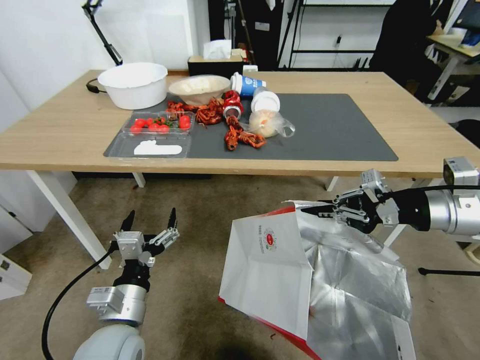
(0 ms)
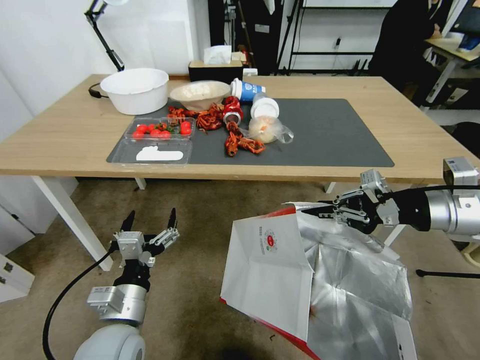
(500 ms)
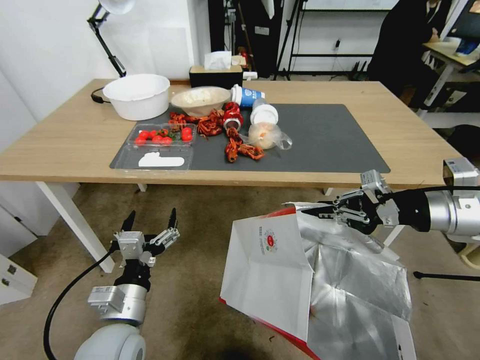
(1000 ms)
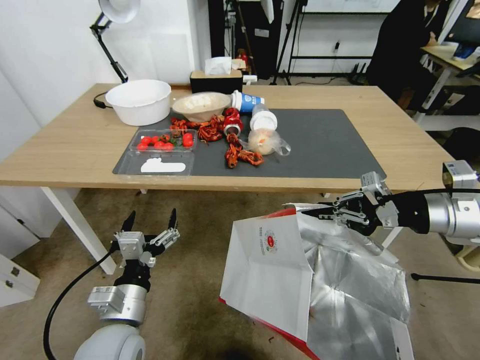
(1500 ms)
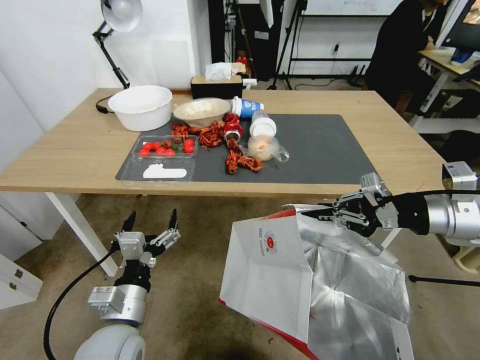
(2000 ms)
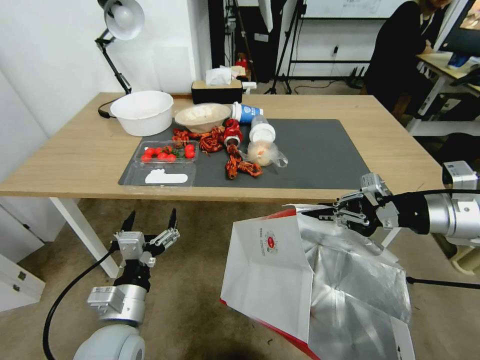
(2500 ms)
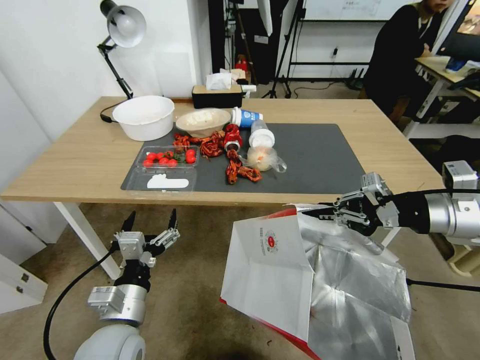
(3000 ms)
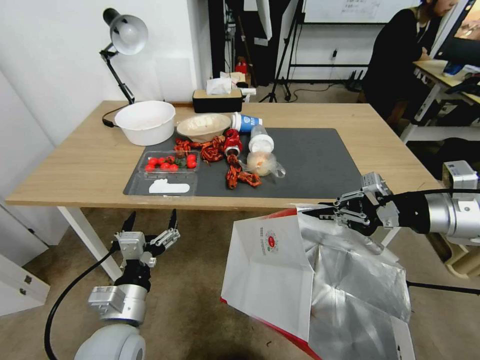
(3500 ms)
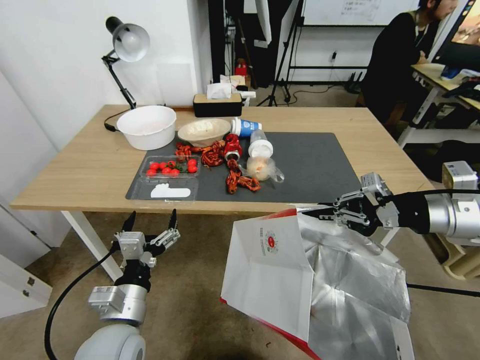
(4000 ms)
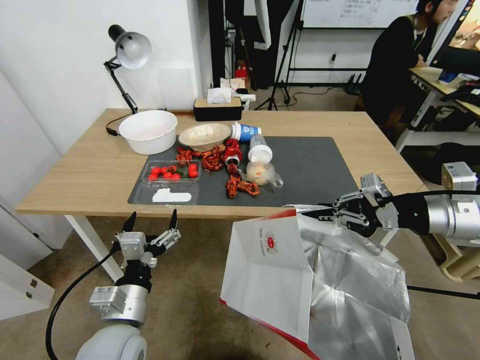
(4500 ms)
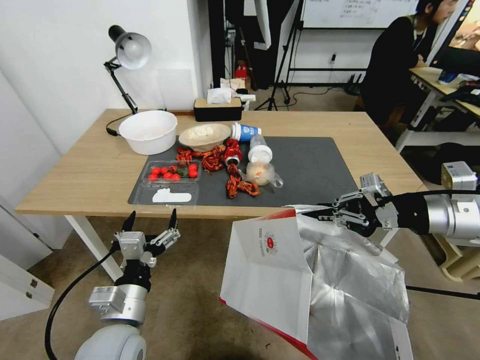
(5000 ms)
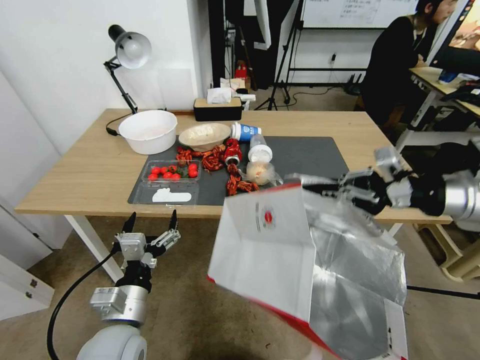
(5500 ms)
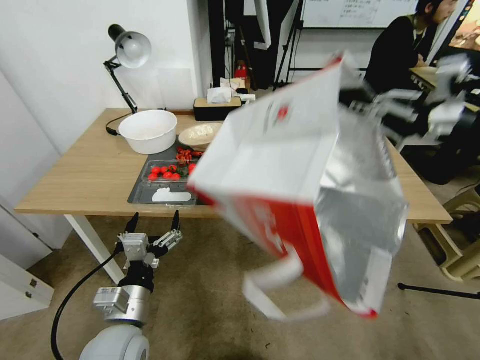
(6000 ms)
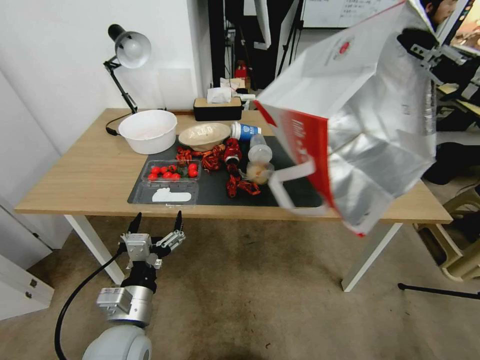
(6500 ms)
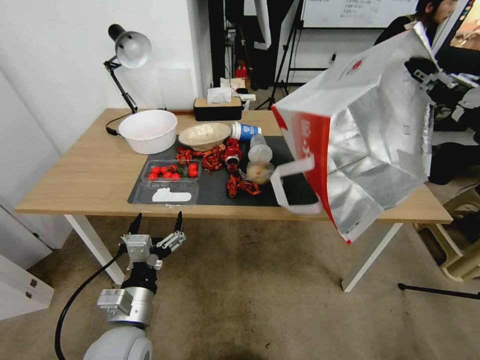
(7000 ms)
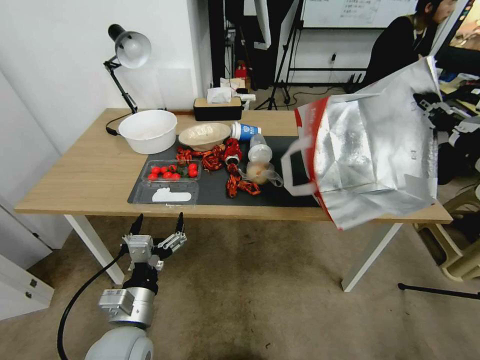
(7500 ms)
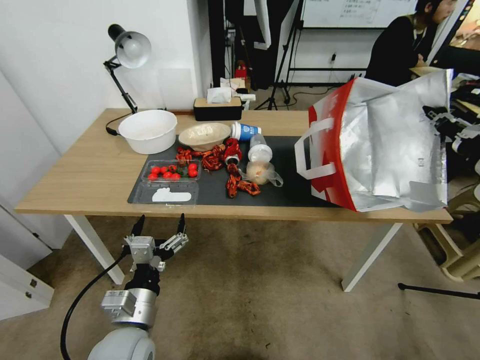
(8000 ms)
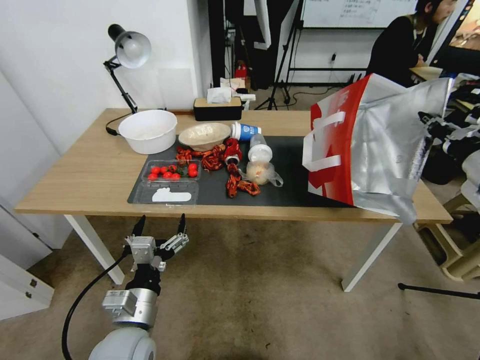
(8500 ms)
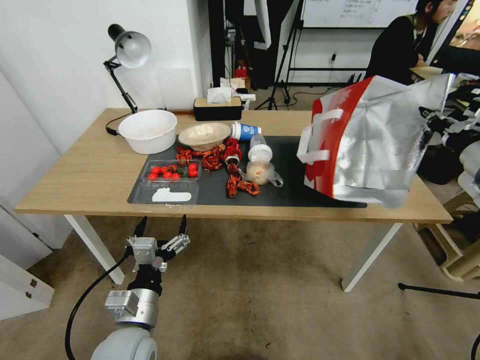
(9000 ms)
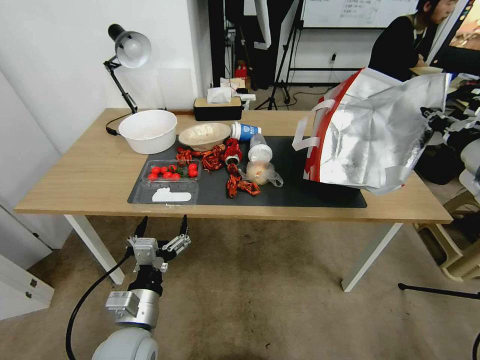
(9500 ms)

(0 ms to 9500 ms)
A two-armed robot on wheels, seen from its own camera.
Task of the whole recording: Pick up the food delivery bag from the floor and place it on the table.
7500 ms - 9500 ms: The right gripper moves forward, some 5 cm.

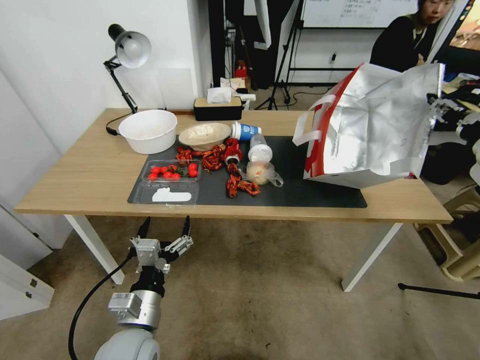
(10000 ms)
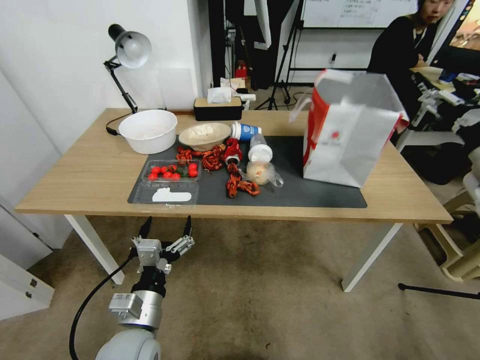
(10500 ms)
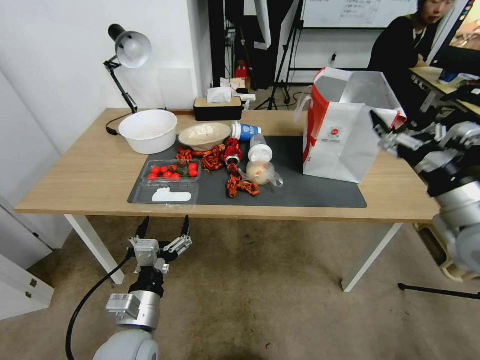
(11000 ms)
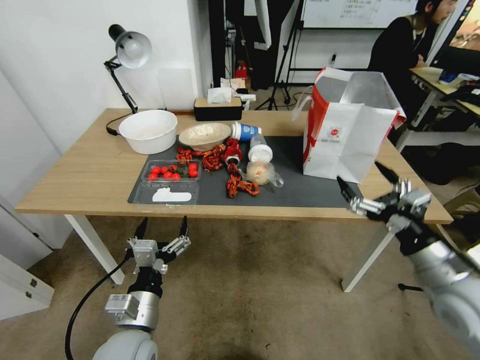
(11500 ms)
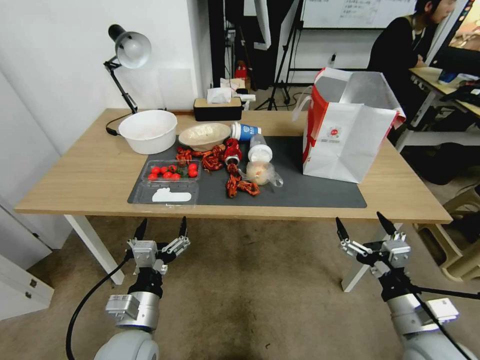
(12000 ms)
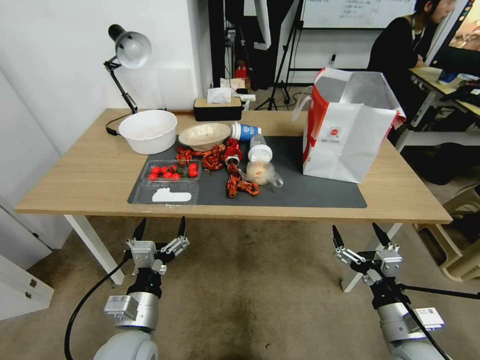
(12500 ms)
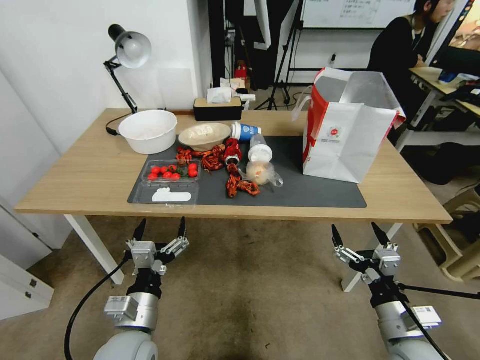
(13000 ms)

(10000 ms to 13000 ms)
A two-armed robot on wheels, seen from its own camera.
Task of the whole recording: Pick up the food delivery bag from the floor and place it on the table.
10000 ms - 11500 ms: The right gripper moves downward, backward and to the left, approximately 20 cm, and opens its fingers.
11500 ms - 13000 ms: The right gripper shifts approximately 15 cm downward, backward and to the left.

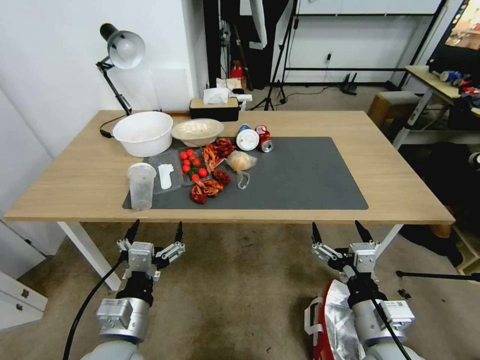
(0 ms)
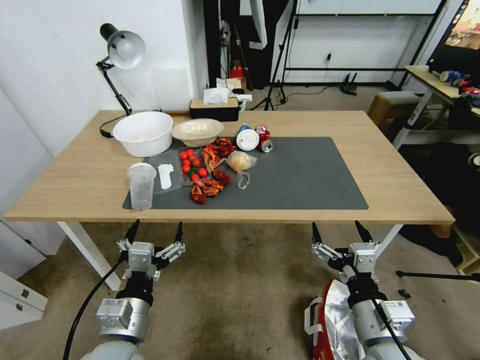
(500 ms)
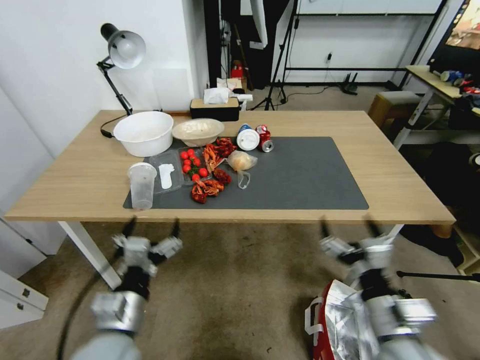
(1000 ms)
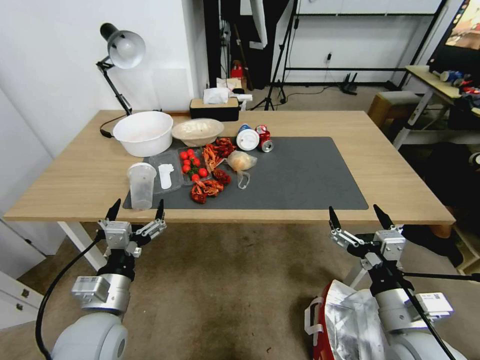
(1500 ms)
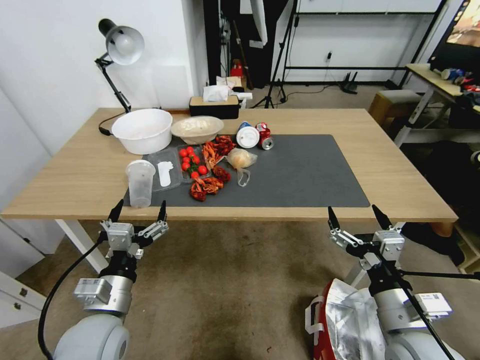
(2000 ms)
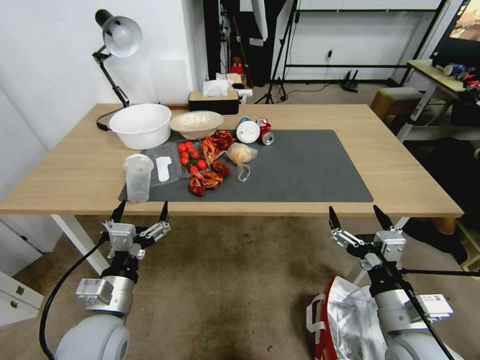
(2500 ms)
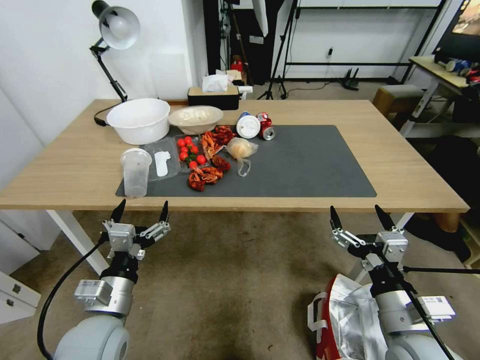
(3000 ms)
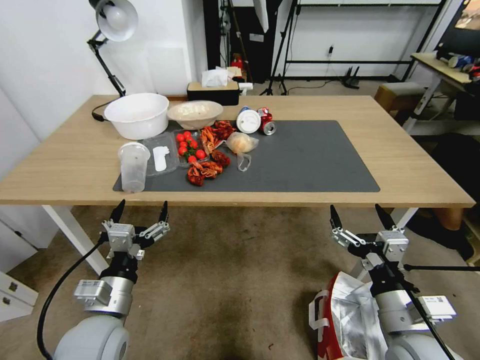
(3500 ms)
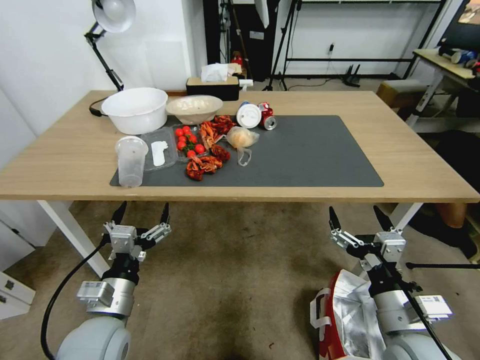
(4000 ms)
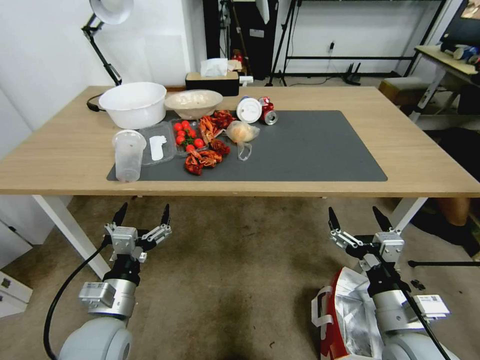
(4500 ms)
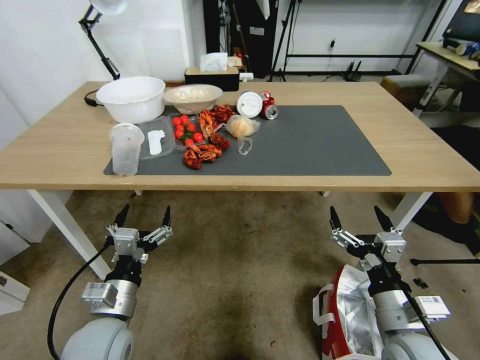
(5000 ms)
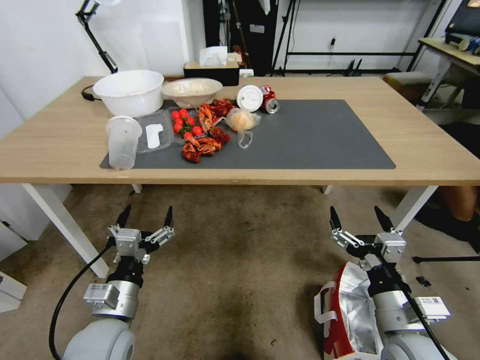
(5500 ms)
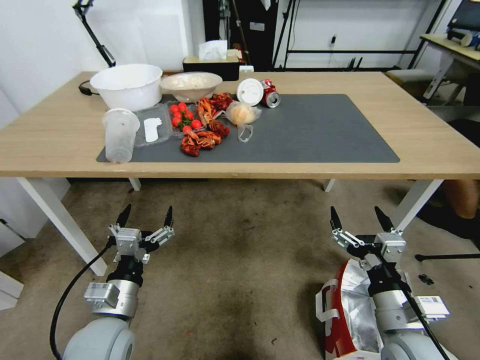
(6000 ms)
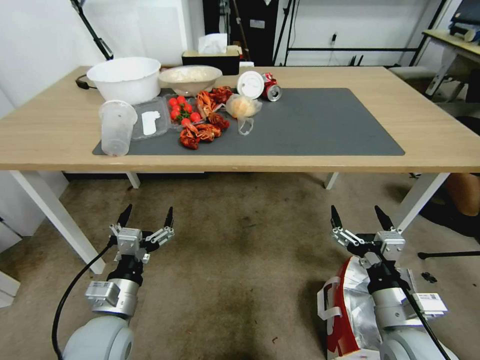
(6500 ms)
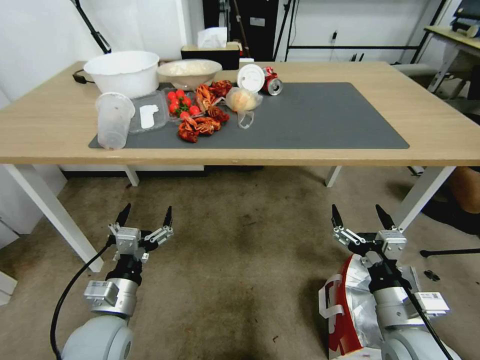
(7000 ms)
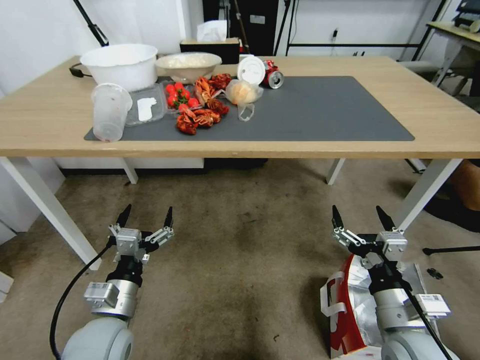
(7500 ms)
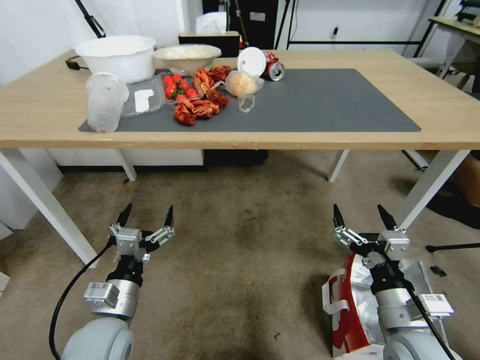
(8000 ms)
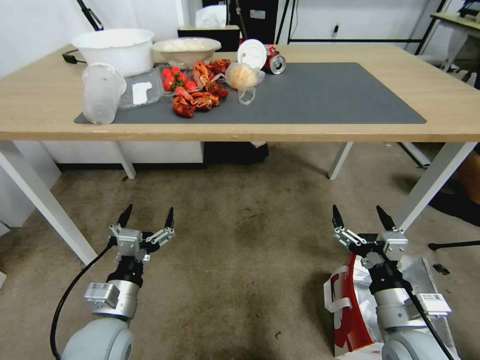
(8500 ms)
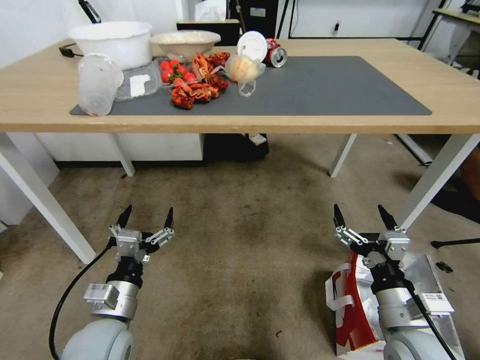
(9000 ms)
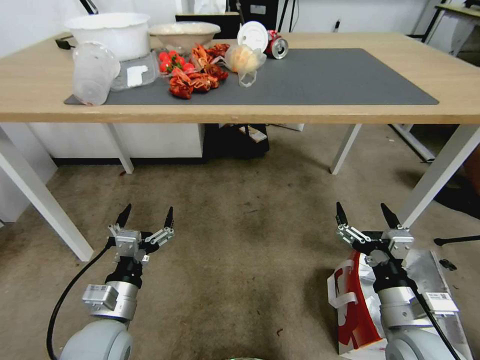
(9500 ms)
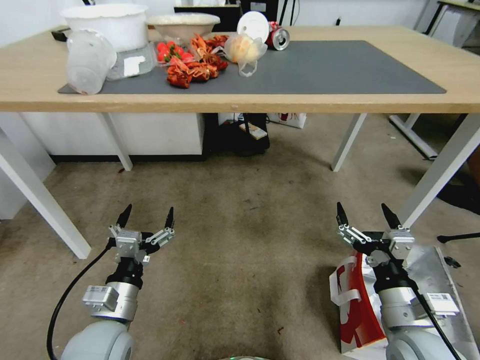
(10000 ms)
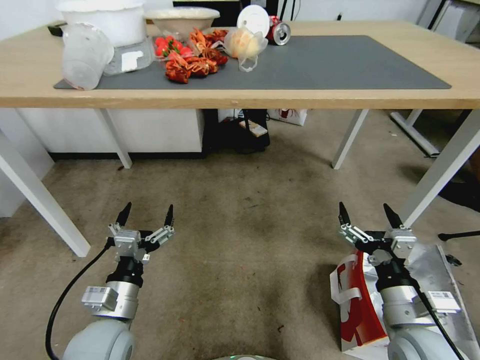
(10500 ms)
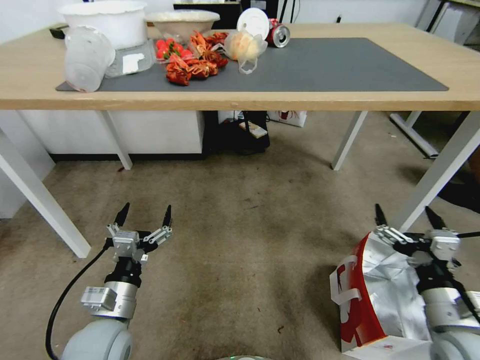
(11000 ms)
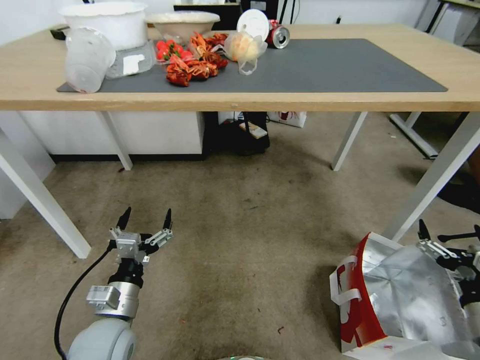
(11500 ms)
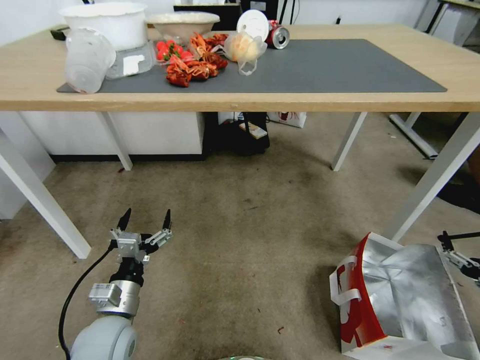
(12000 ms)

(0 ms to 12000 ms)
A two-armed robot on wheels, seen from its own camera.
Task of the whole recording: Pick up the food delivery bag from the floor and place it on the table.
10000 ms - 12000 ms: The right gripper is displaced to the right by roughly 20 cm.

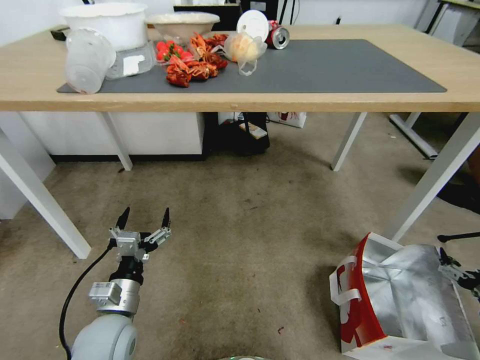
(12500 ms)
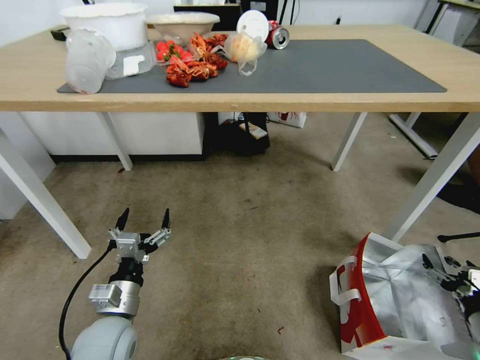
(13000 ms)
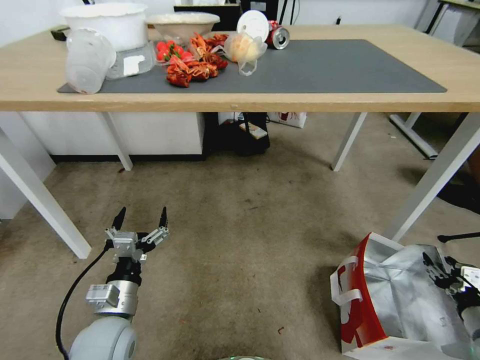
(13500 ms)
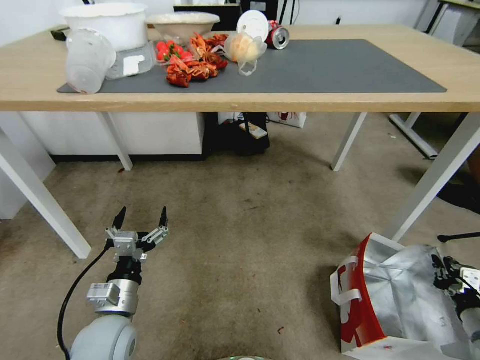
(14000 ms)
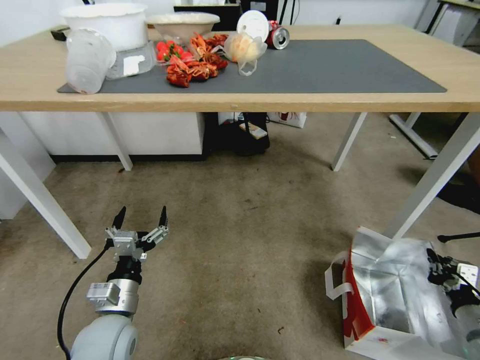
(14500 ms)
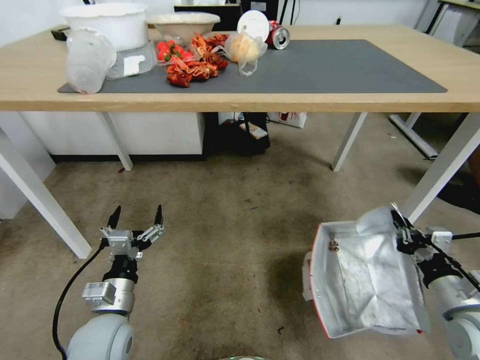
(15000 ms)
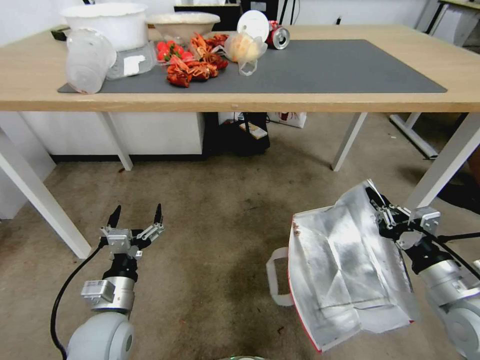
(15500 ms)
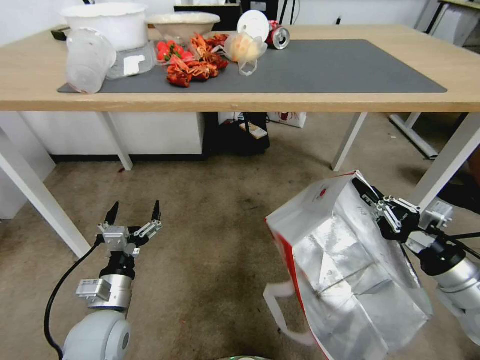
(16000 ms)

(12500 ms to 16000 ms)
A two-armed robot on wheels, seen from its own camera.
Task of the whole recording: Pick up the food delivery bag from the floor and place it on the table.
12500 ms - 14500 ms: The right gripper closes.
14500 ms - 16000 ms: The right gripper moves upward and to the left, some 20 cm.
